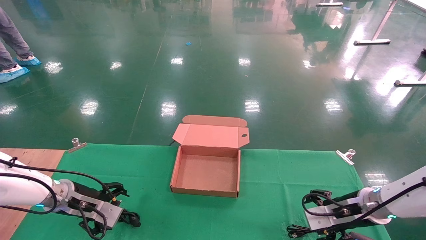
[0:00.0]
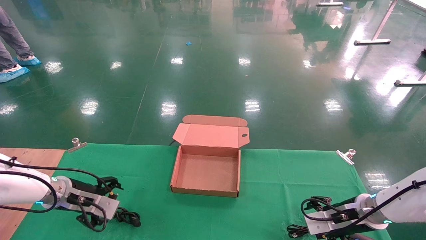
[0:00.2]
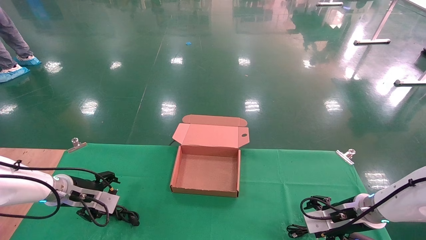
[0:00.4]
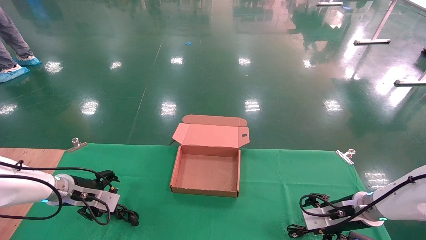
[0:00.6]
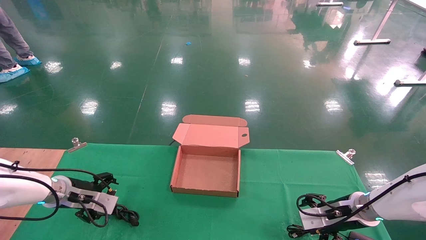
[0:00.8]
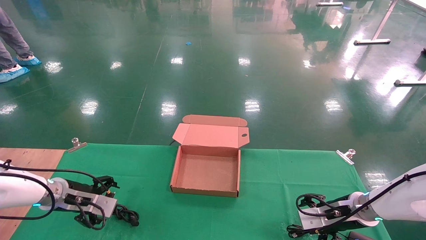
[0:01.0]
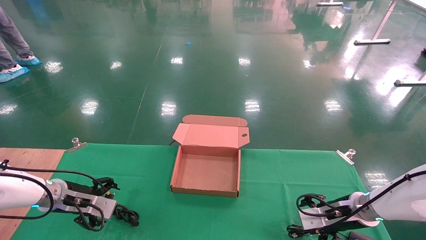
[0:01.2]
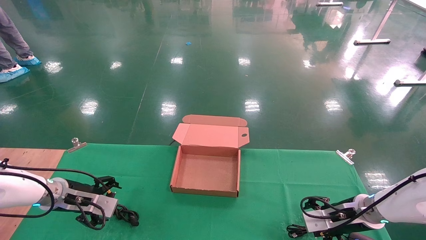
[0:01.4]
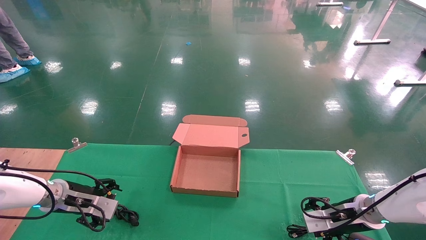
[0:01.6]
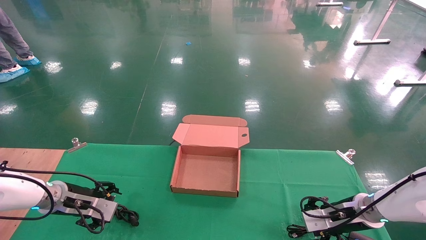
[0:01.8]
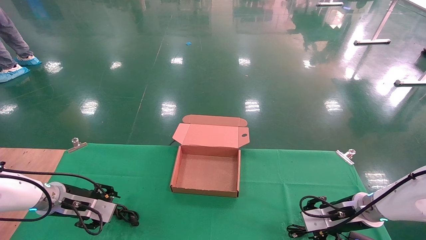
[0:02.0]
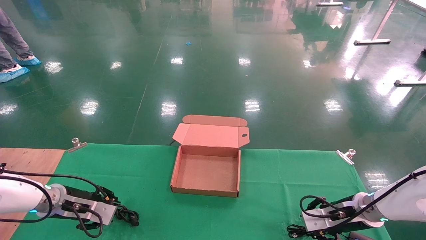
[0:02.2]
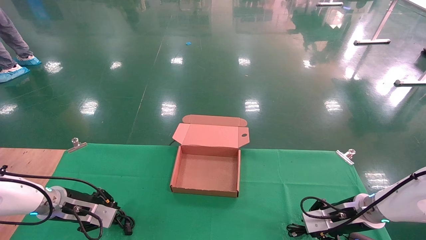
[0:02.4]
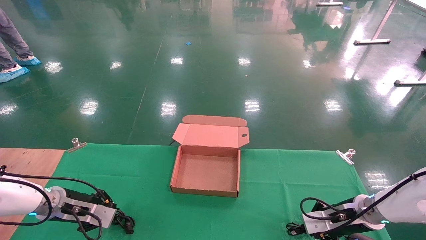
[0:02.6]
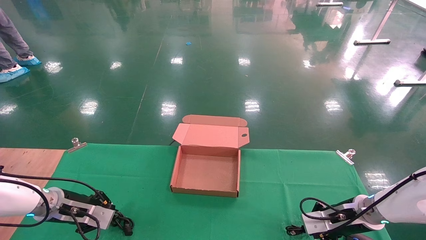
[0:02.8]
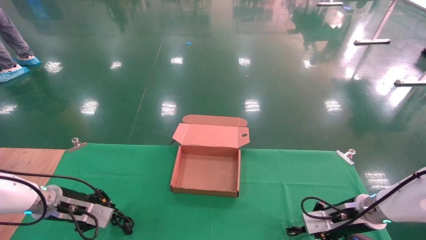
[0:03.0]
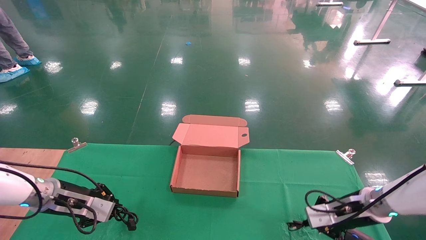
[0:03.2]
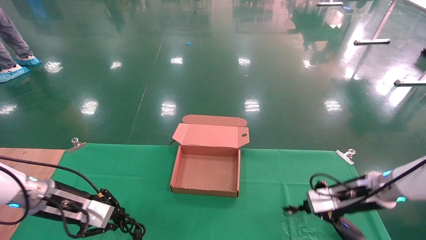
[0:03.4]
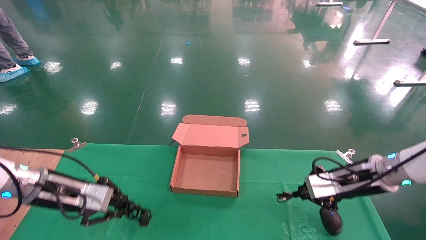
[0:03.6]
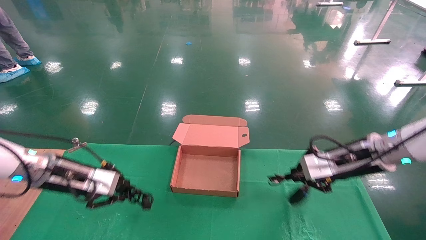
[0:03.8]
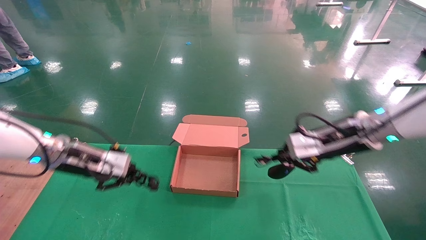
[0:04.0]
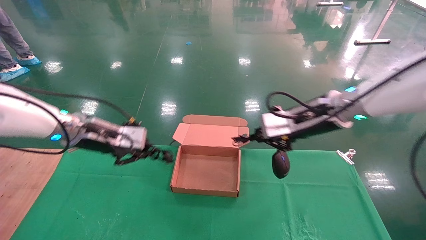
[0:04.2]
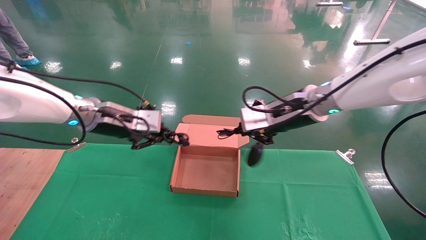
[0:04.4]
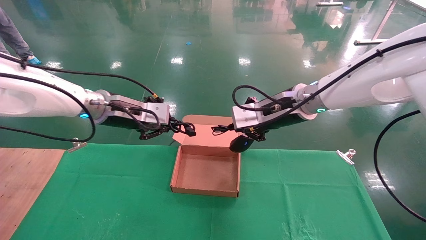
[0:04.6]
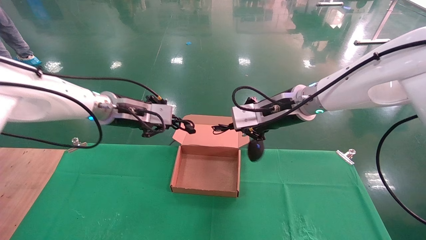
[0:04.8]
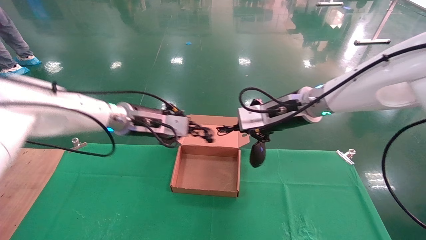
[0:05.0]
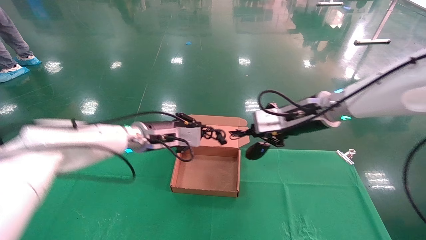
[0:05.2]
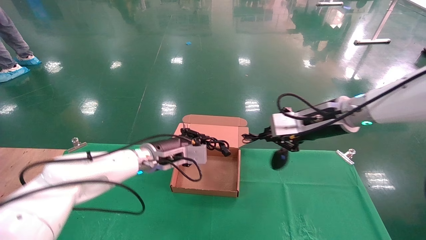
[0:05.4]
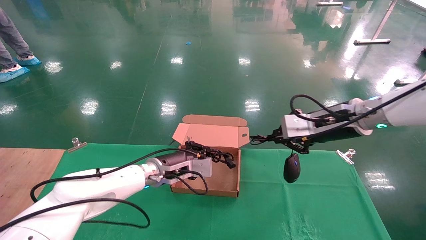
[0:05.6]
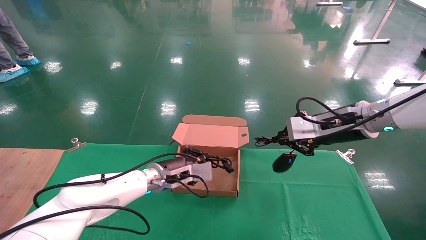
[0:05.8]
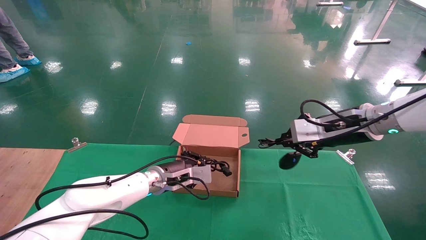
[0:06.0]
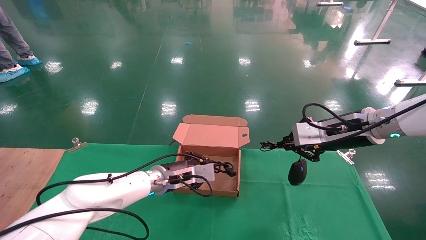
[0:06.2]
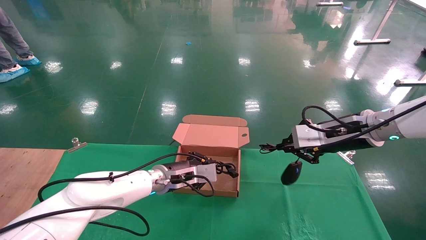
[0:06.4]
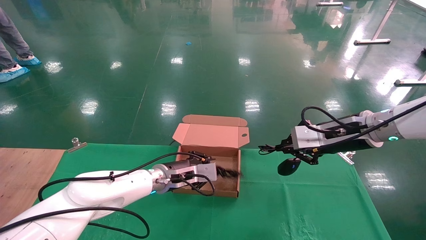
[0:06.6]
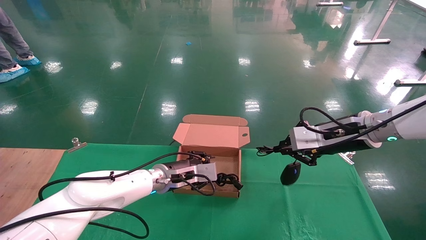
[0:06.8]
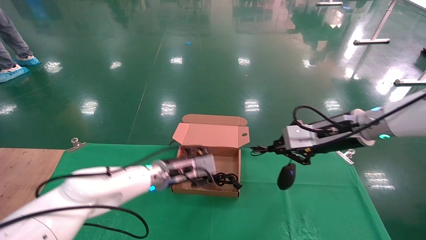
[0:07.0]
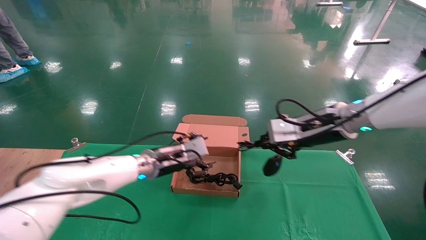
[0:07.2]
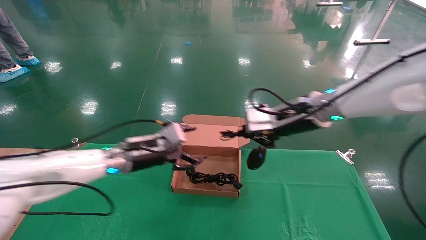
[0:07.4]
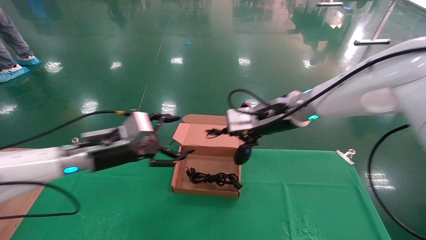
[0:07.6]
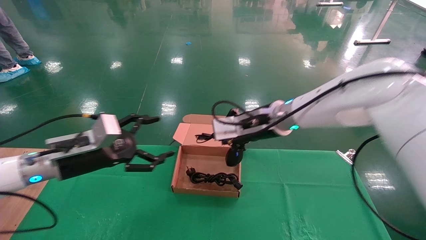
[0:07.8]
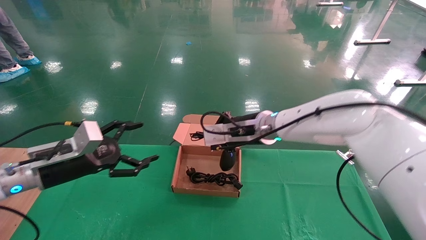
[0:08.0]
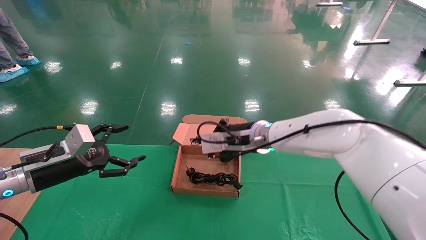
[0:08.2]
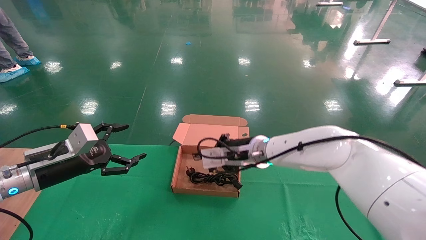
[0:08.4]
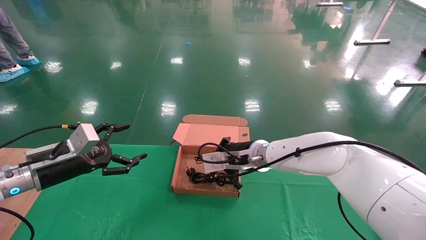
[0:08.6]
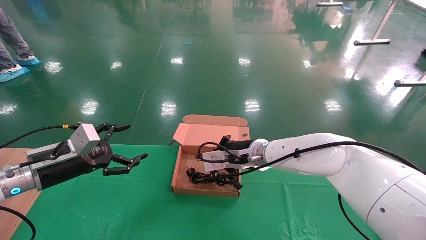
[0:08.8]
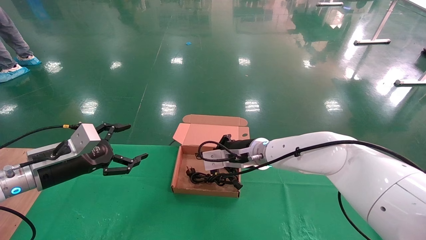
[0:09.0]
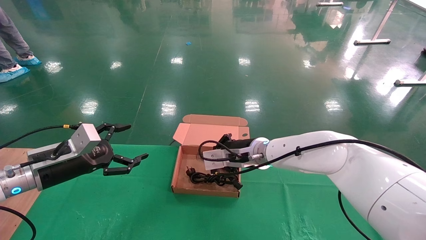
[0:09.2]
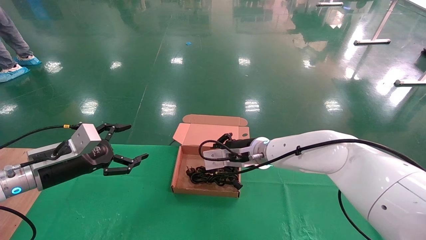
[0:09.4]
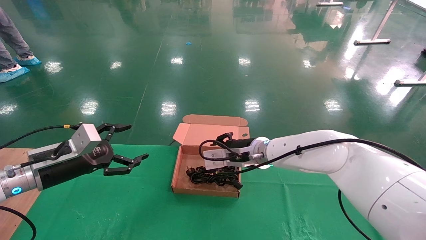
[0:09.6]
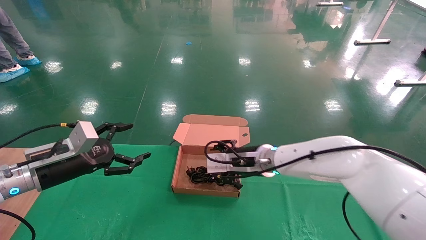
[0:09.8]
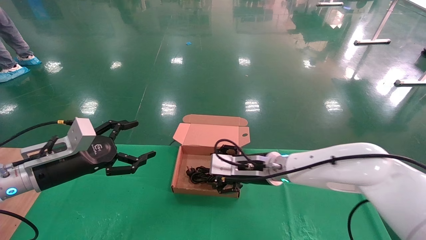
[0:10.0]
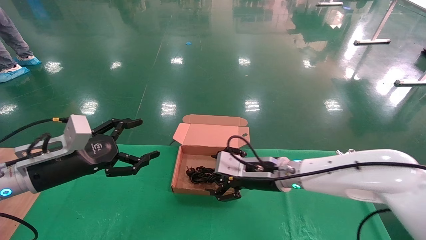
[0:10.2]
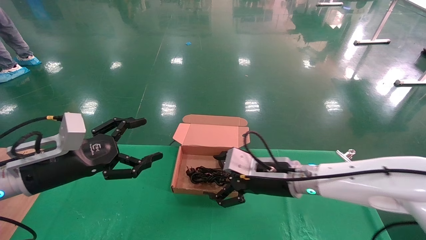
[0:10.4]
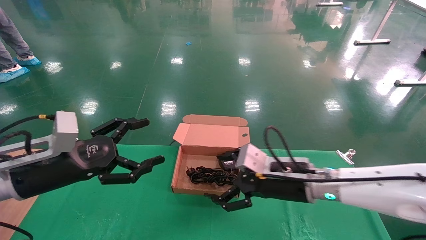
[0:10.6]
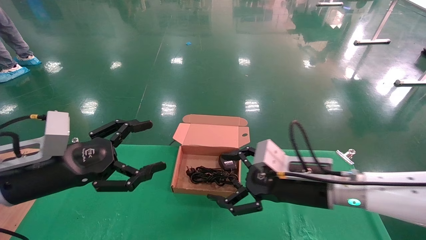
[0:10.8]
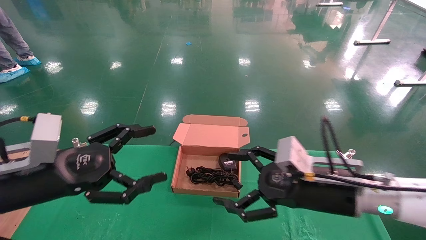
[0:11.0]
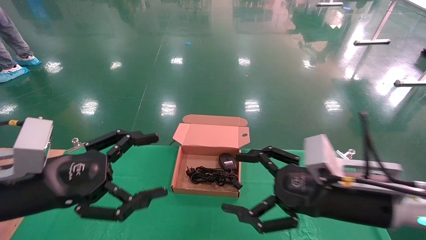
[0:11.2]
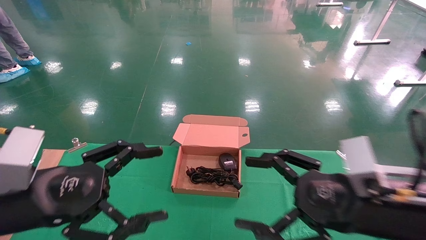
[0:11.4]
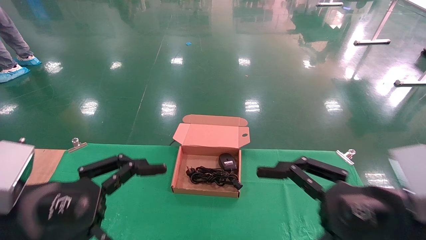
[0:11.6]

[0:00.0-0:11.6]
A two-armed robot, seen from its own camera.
Step, 0:00.0 to 0:03.2: Grab and lift both the mouse and power cord from the accessory packaging area at the same time.
Step, 0:03.4 to 0:09.2: Place the mouse and power cord into the box.
0:00.0 to 0:01.4: The grippers stay close to where they were, moving slightly.
0:01.4 to 0:02.8: The right gripper closes, while the left gripper closes.
0:02.8 to 0:04.4: The right gripper moves upward and to the left, some 30 cm, while the left gripper moves upward and to the right, approximately 25 cm.
0:04.4 to 0:05.8: The right gripper travels to the right by approximately 10 cm; the left gripper heads downward and to the right, covering about 20 cm.
0:05.8 to 0:07.2: The left gripper opens. The right gripper moves to the left, approximately 5 cm.
0:07.2 to 0:08.8: The left gripper travels to the left and backward by roughly 20 cm, and opens its fingers. Meanwhile the right gripper moves to the left, downward and forward, roughly 20 cm.
0:08.8 to 0:10.2: The left gripper moves about 5 cm. Meanwhile the right gripper travels backward by approximately 5 cm, and opens its fingers.
0:10.2 to 0:11.6: The right gripper heads backward and to the right, covering approximately 25 cm, while the left gripper is displaced backward by some 15 cm.
